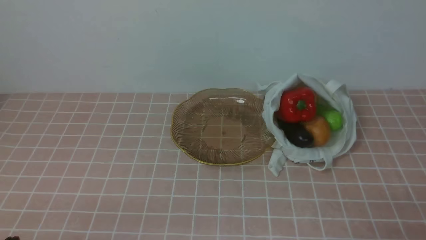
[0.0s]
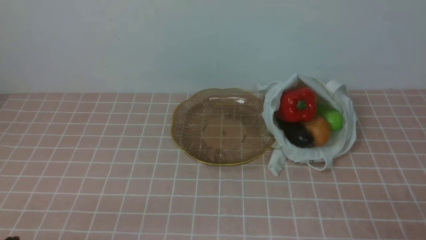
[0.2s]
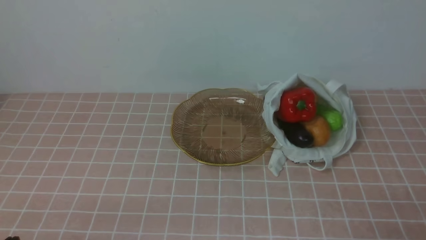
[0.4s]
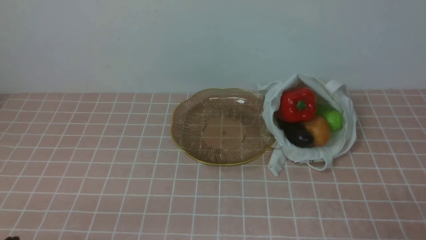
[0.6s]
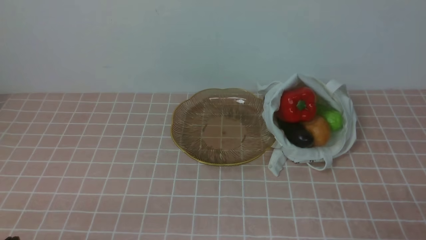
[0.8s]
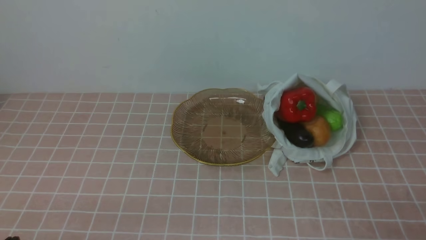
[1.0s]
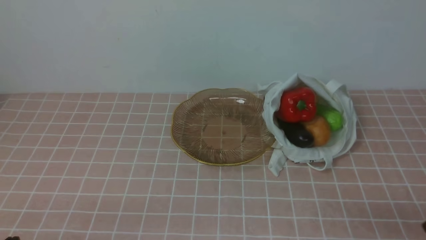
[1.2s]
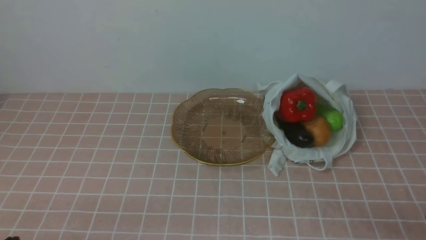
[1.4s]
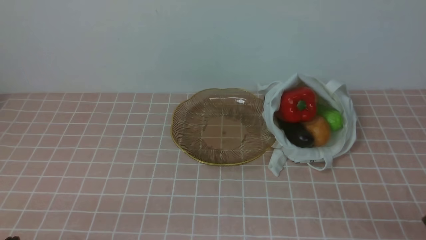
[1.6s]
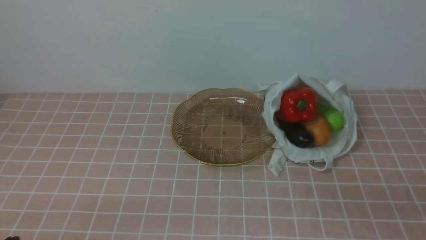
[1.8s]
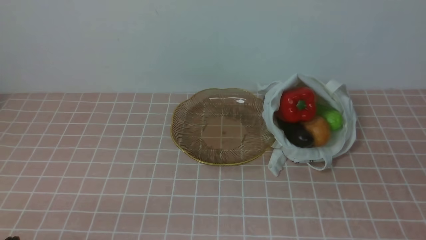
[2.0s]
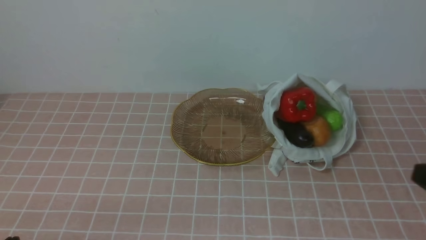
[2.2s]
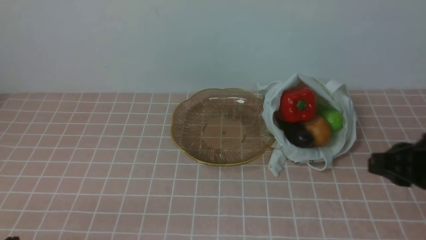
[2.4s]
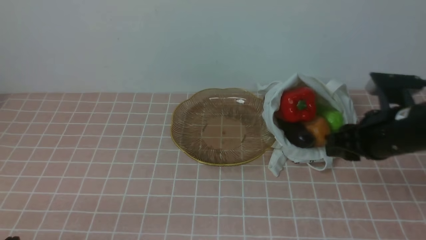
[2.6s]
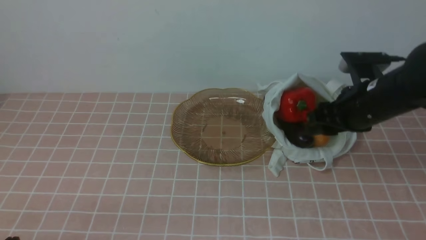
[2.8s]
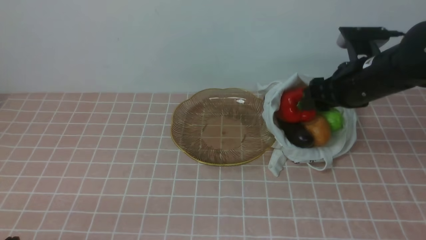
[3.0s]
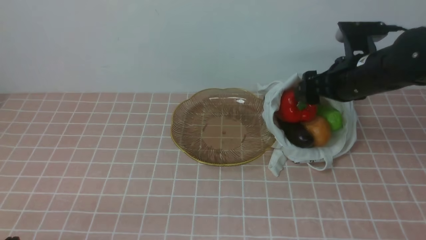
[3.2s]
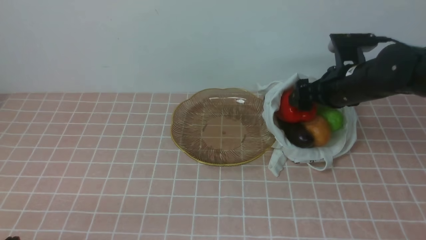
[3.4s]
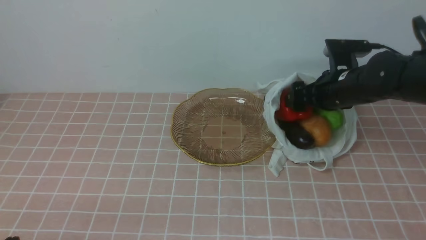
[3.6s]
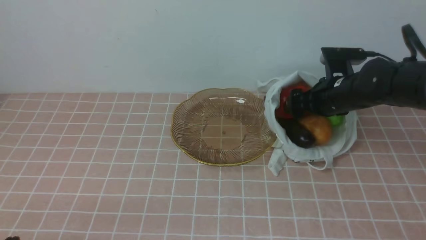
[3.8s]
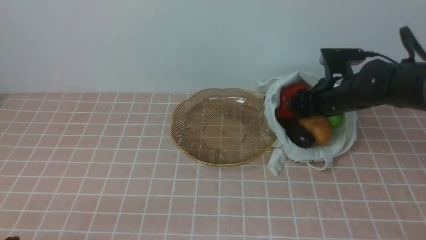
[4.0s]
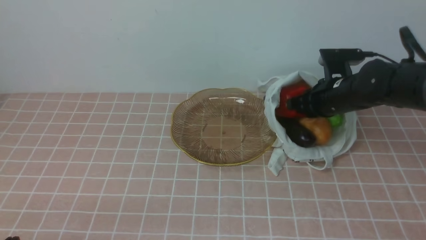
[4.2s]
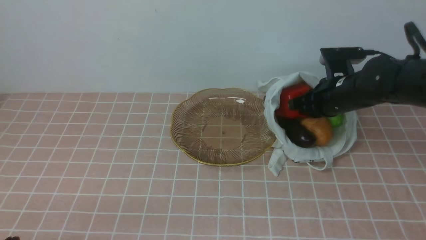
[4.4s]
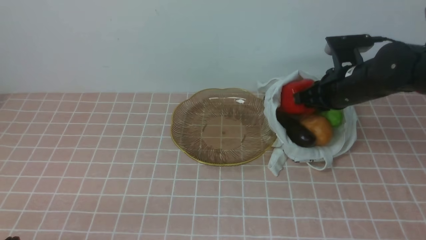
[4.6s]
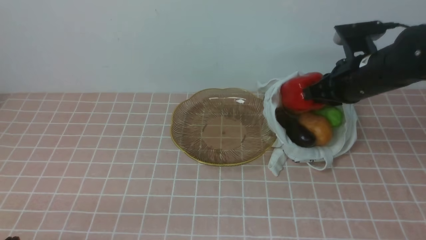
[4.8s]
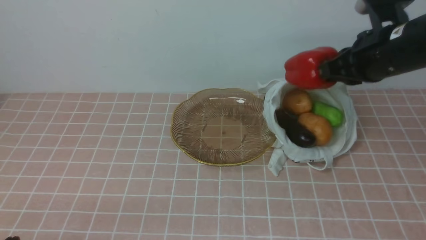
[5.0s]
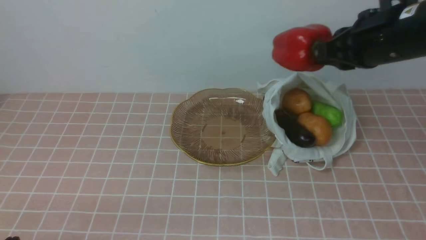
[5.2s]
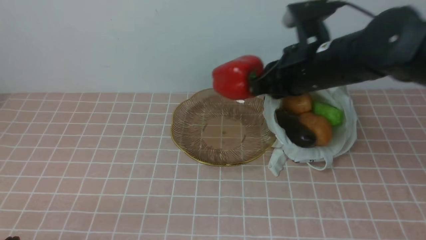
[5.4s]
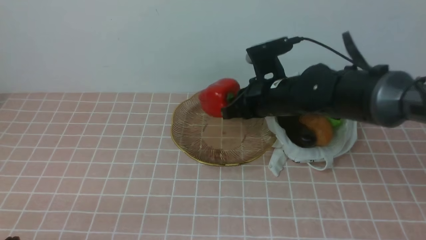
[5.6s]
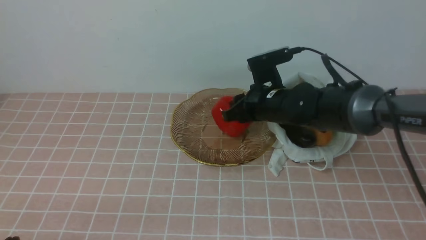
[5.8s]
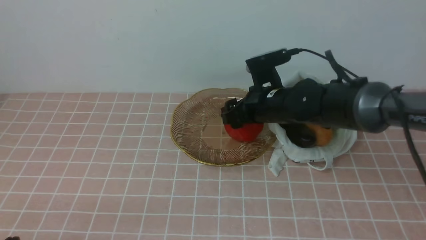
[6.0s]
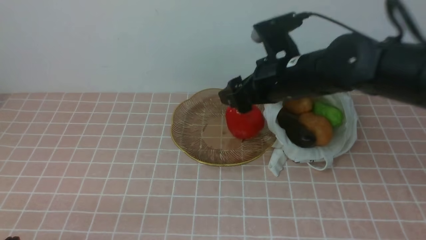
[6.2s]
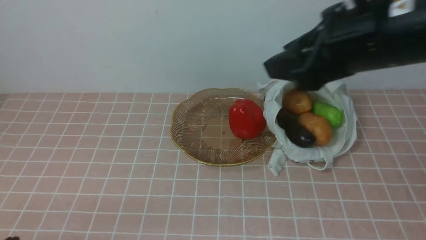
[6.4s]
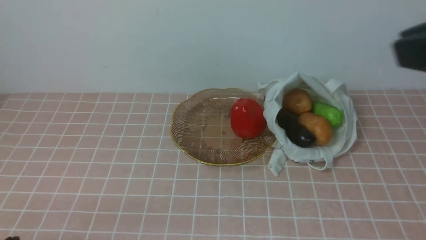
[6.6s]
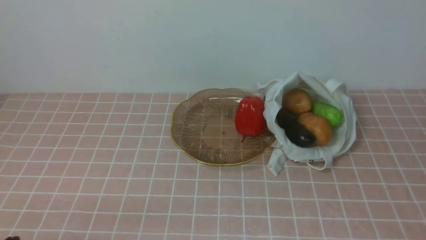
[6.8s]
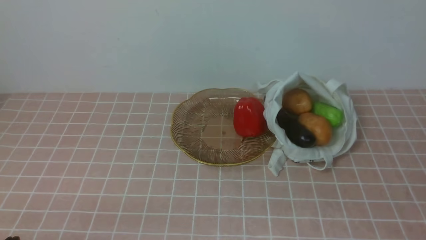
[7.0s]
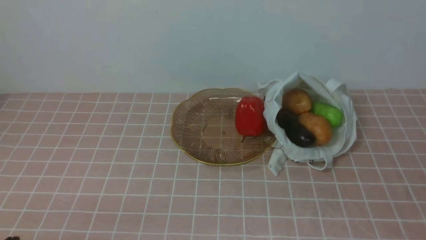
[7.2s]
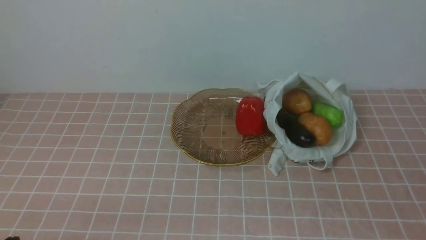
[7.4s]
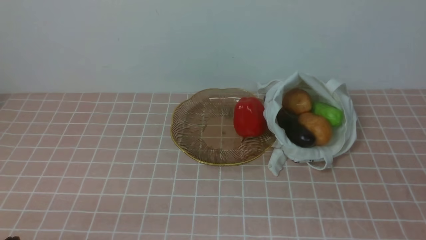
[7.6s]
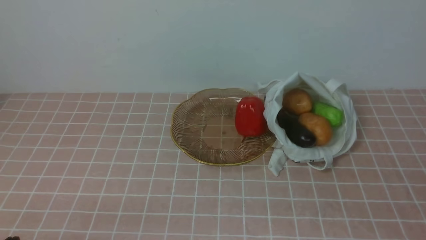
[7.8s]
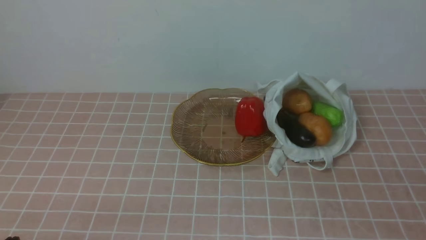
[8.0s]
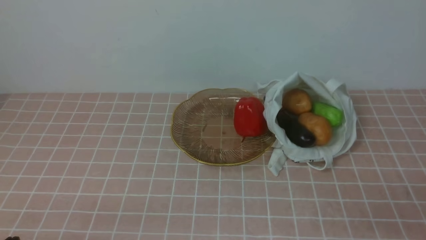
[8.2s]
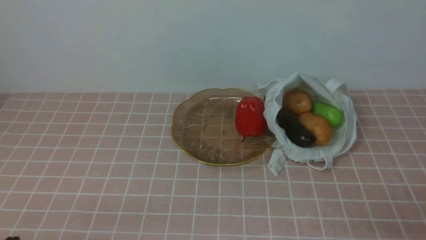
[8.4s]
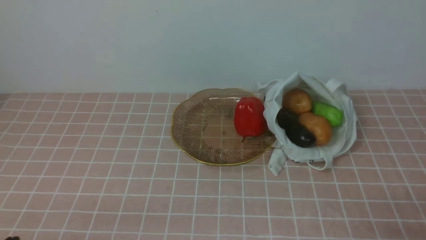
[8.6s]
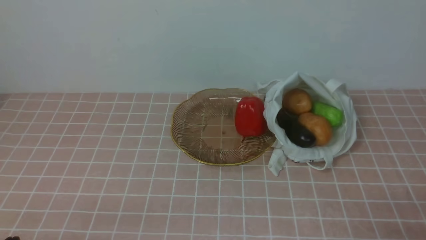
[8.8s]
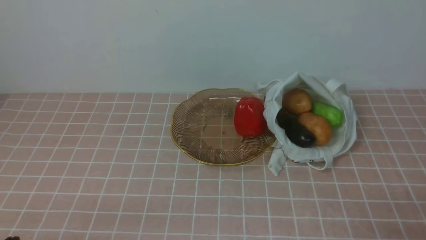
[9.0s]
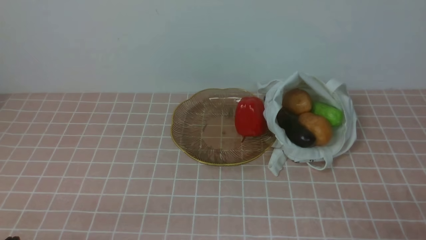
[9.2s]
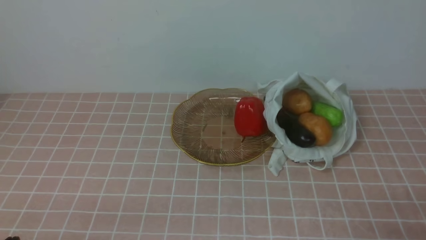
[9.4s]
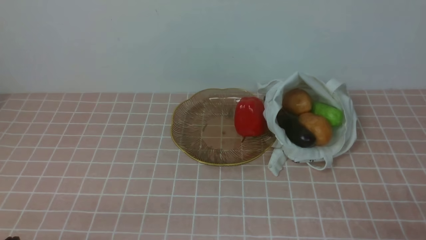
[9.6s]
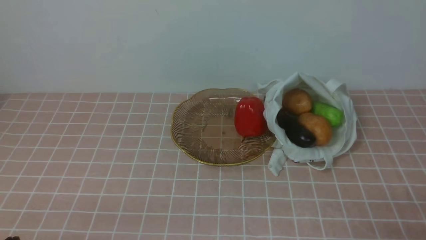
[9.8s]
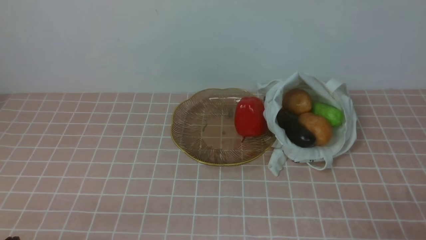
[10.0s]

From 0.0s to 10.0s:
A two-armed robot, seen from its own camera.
Task of the whole recording: take vegetables from bag on pink coffee tablecloth place on plate.
Step, from 0.0s to 4.2s: Grasp the bell pepper with right gripper.
Step, from 4.4s to 6.2s: Place the bell pepper on the plate with right gripper.
From 1.4s to 2.8s: The right gripper moves forward, roughly 25 cm, and opens up.
From 2.8s to 4.2s: The right gripper moves forward and downward, approximately 10 cm, and closes up.
From 4.2s to 5.8s: The right gripper heads to the left, covering approximately 10 cm, and goes upward and returns, approximately 15 cm each way.
From 5.8s to 7.2s: The right gripper moves backward and to the right, approximately 40 cm, and closes its fingers.
From 8.6s to 10.0s: Both grippers stay about where they are.

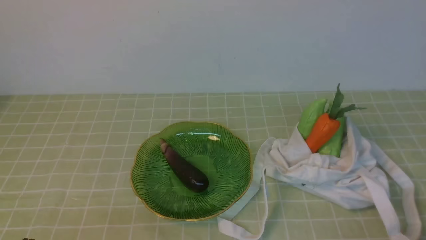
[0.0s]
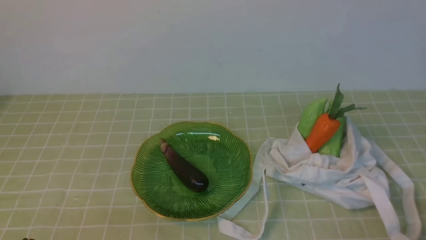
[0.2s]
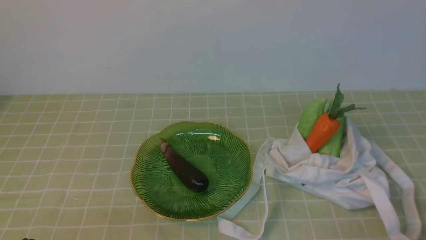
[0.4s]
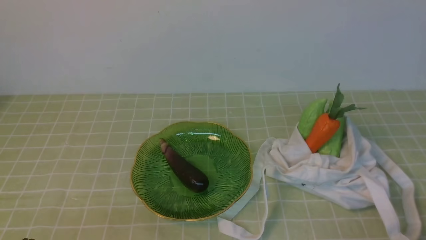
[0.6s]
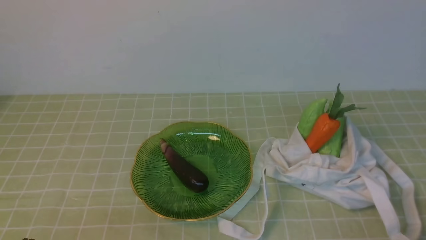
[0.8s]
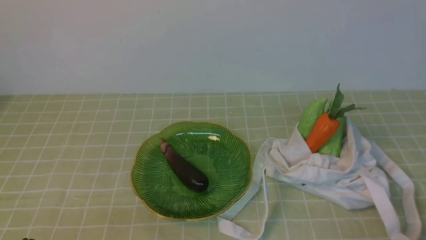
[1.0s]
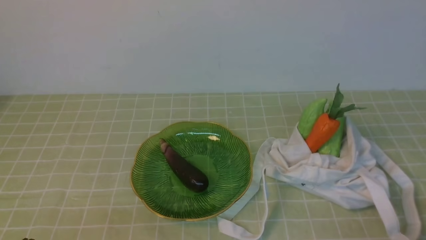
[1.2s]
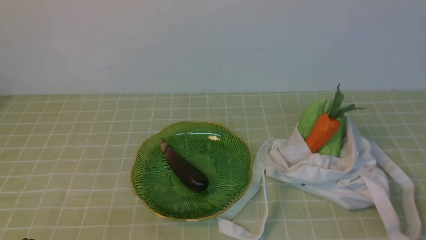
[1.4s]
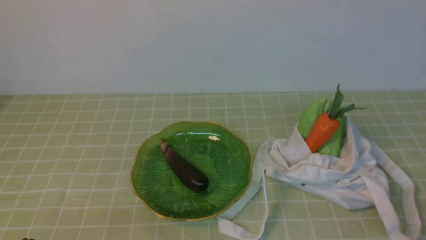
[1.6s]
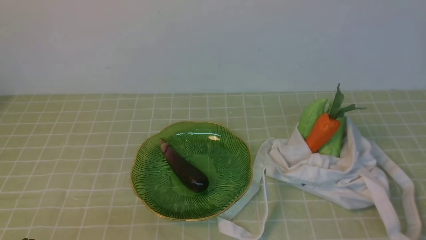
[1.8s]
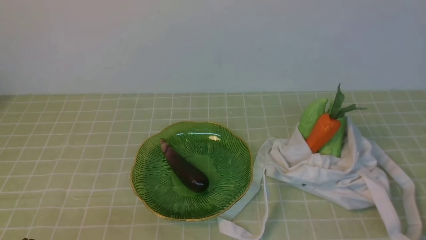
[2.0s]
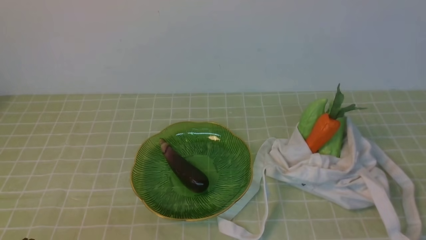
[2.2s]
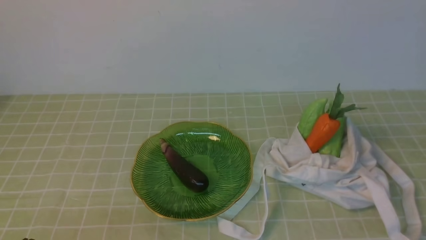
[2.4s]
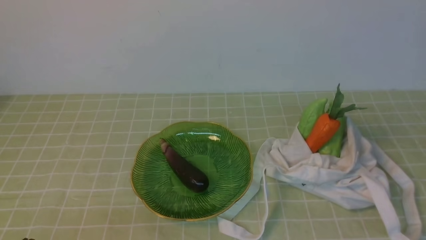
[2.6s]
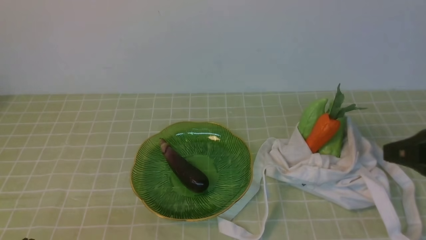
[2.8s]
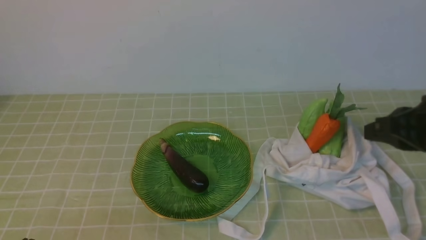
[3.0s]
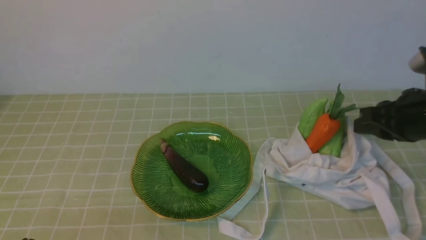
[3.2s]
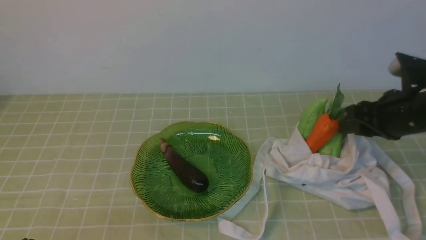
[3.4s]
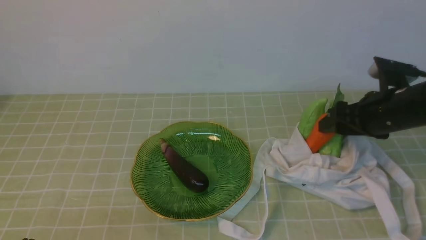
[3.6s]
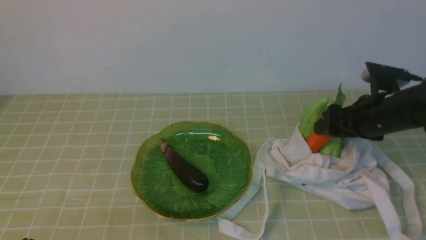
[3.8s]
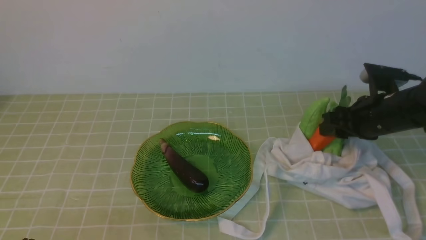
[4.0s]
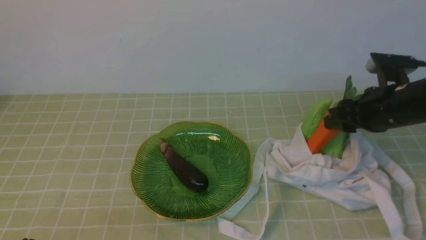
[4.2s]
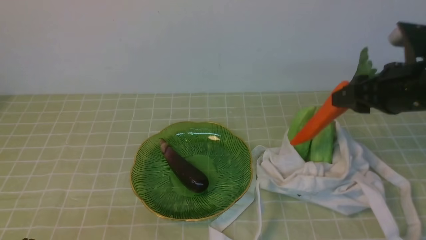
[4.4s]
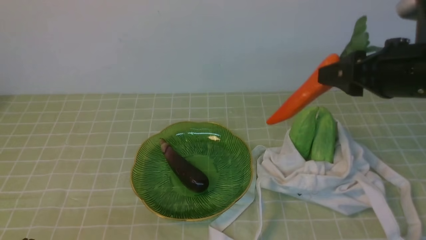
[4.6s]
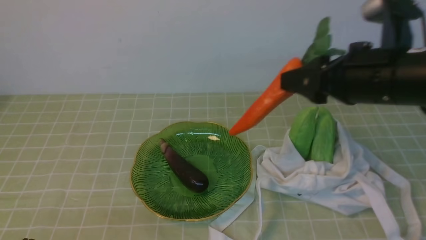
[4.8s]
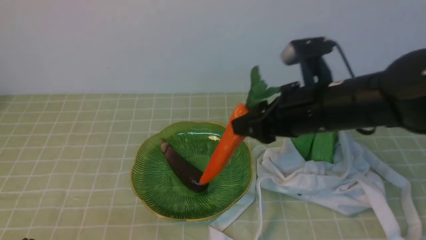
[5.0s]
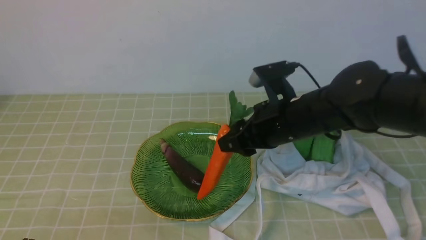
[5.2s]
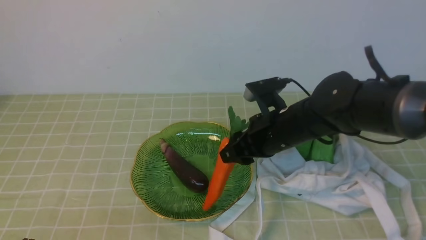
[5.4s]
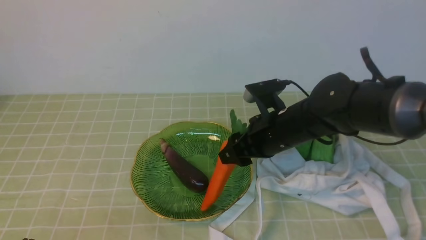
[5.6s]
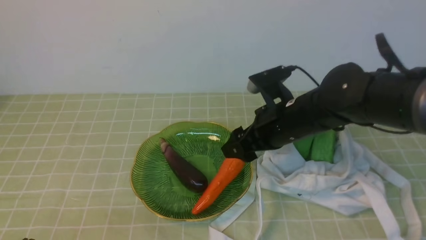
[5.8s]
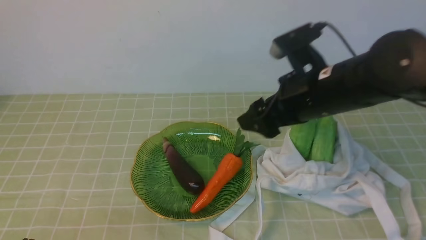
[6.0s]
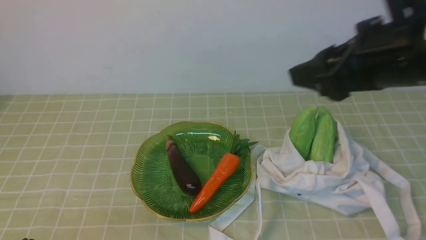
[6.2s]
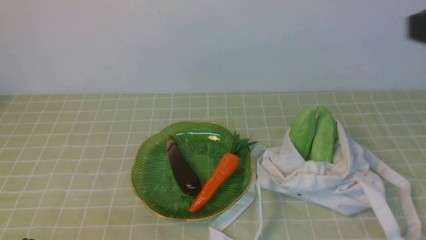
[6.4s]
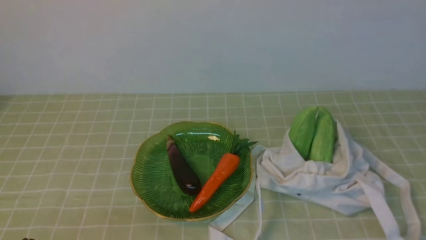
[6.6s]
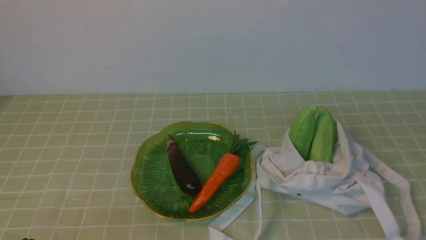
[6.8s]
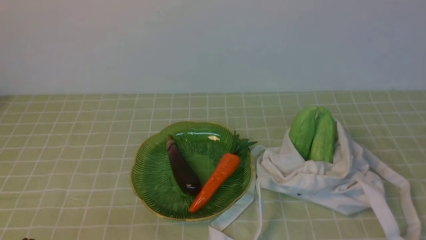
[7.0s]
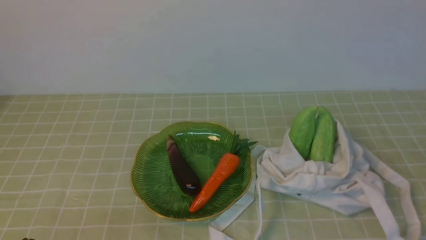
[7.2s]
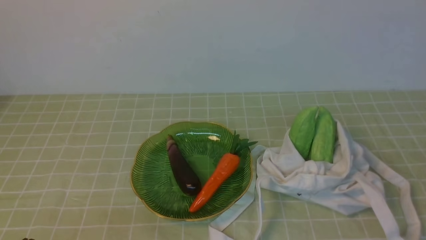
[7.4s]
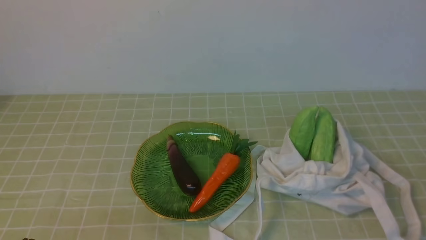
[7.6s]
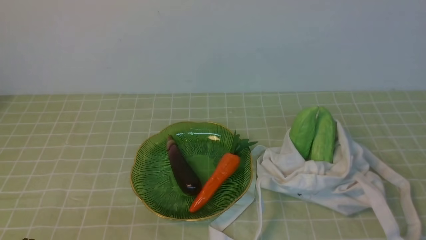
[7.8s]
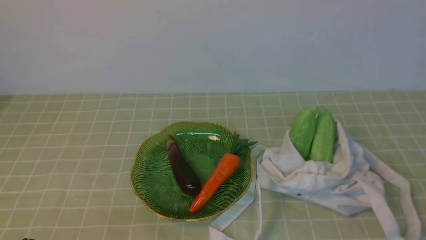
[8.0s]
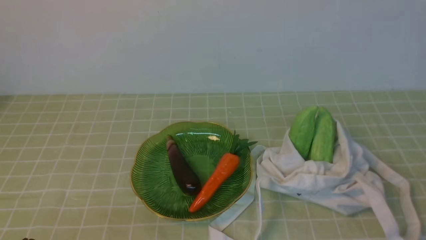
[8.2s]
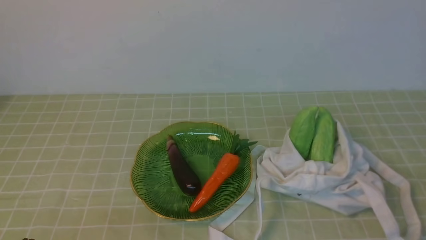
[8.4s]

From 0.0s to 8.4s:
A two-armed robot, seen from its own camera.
Task of the whole recording: take vegetables from bag on green coffee tablecloth place on plate.
Step, from 0.0s to 4.0s: Grasp the carrot with right gripper.
Step, from 4.2s to 5.8s: Place the carrot on the plate with right gripper.
From 1.4s to 2.8s: The right gripper heads forward and upward, covering about 20 cm.
From 2.8s to 4.2s: The right gripper is displaced forward and downward by about 15 cm, and opens.
From 4.2s to 5.6s: The right gripper goes about 15 cm to the left.
From 5.6s to 7.0s: The right gripper travels backward, to the right and upward by roughly 40 cm, and closes.
